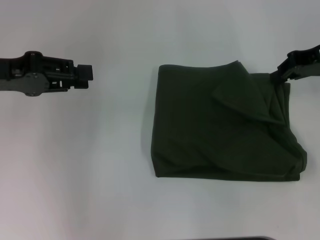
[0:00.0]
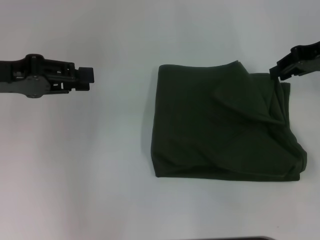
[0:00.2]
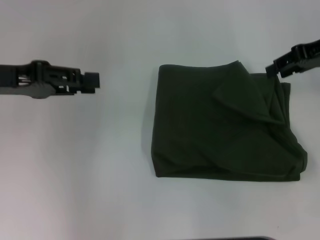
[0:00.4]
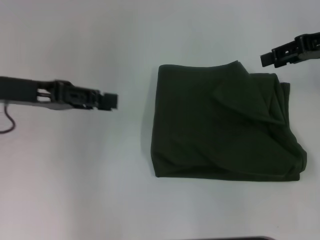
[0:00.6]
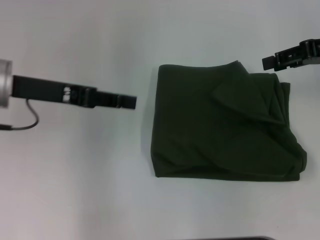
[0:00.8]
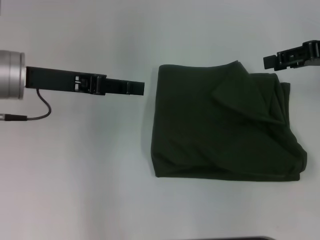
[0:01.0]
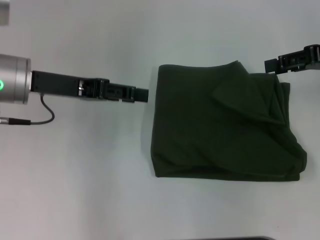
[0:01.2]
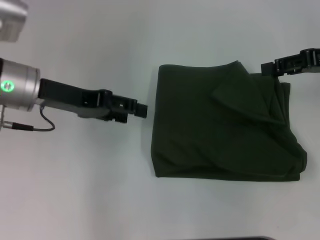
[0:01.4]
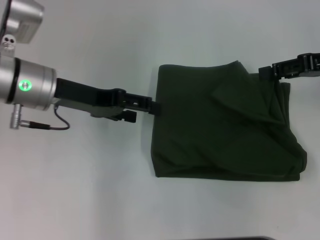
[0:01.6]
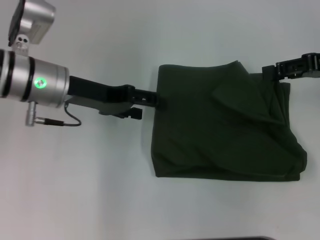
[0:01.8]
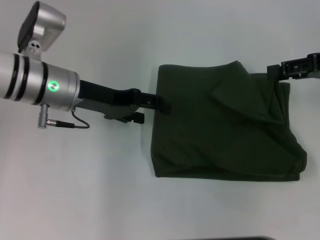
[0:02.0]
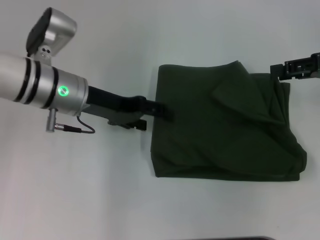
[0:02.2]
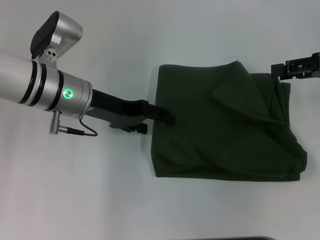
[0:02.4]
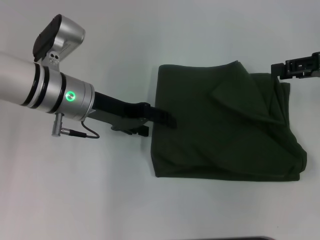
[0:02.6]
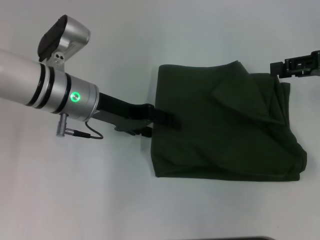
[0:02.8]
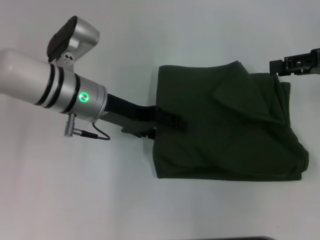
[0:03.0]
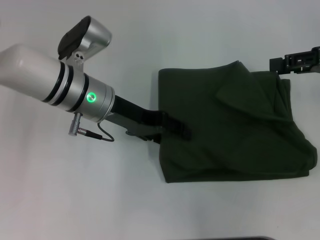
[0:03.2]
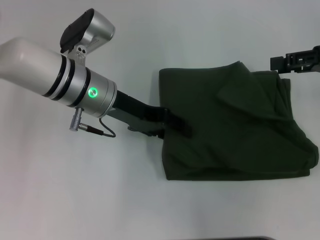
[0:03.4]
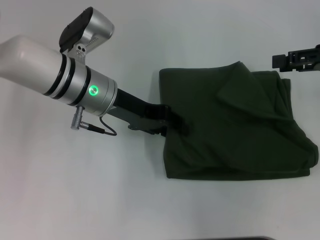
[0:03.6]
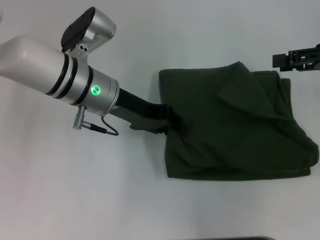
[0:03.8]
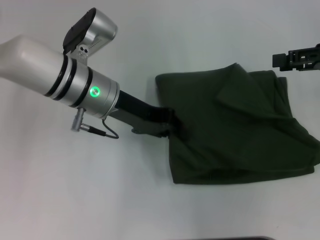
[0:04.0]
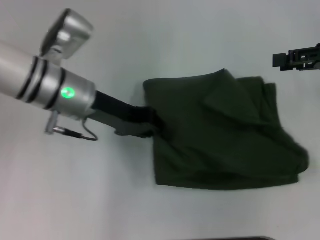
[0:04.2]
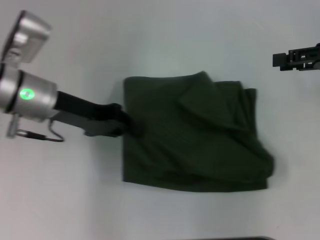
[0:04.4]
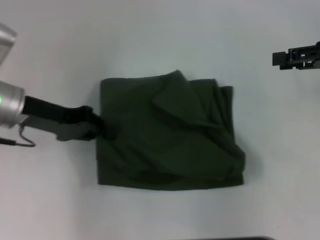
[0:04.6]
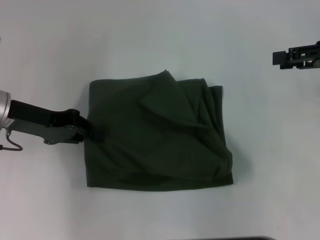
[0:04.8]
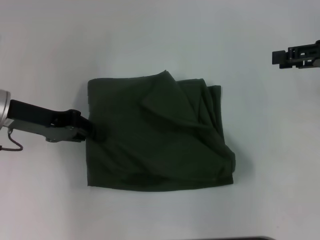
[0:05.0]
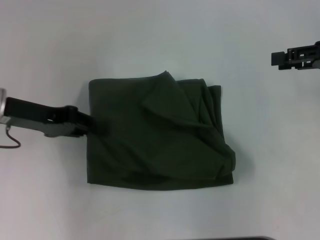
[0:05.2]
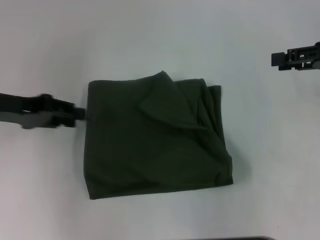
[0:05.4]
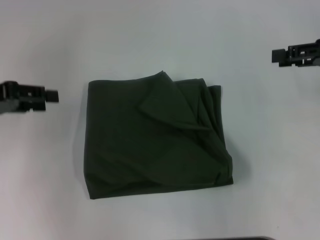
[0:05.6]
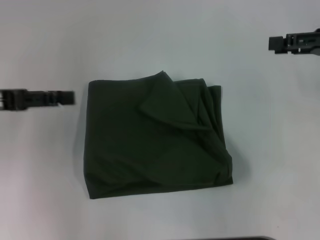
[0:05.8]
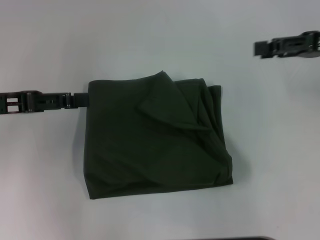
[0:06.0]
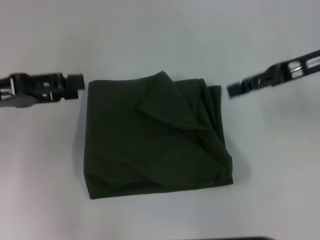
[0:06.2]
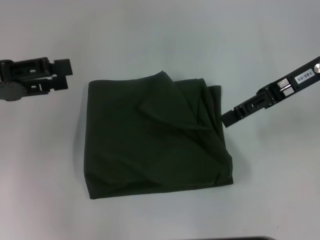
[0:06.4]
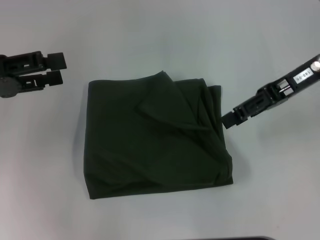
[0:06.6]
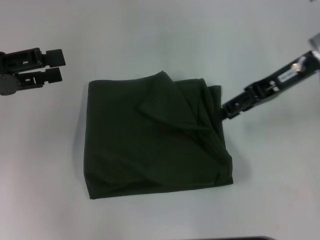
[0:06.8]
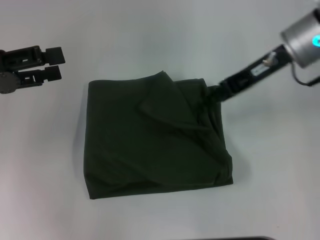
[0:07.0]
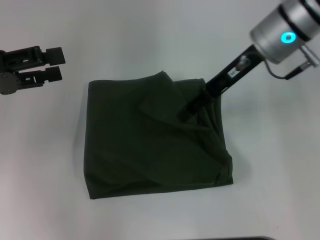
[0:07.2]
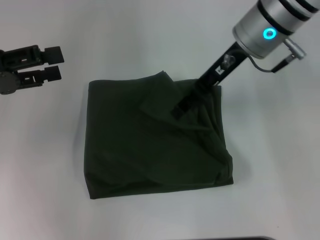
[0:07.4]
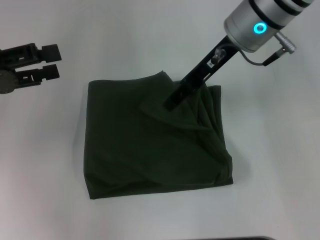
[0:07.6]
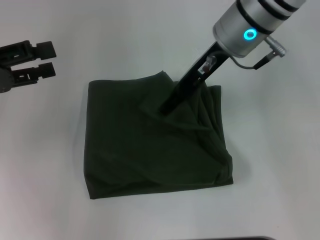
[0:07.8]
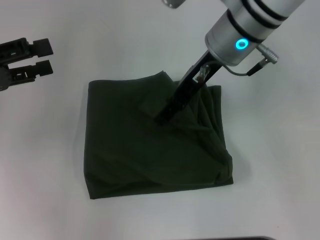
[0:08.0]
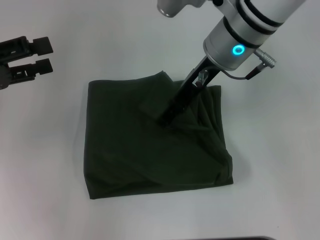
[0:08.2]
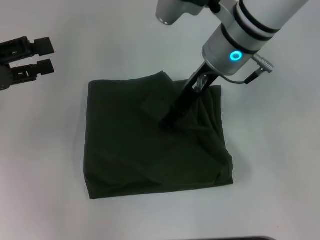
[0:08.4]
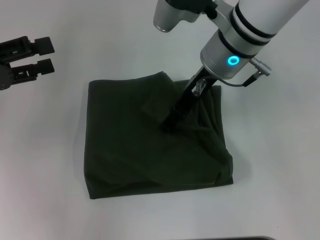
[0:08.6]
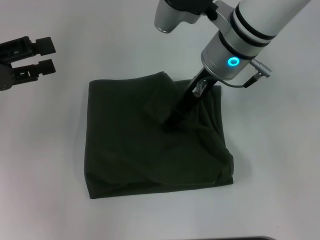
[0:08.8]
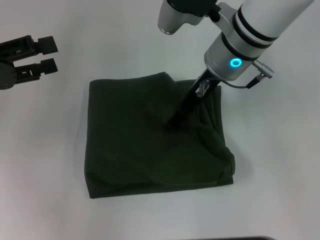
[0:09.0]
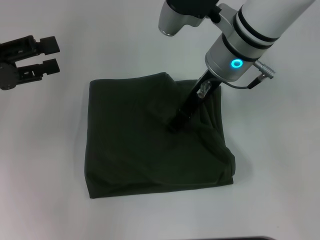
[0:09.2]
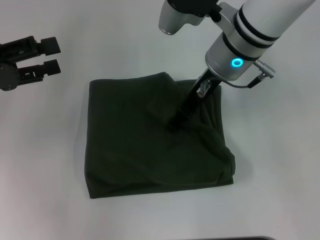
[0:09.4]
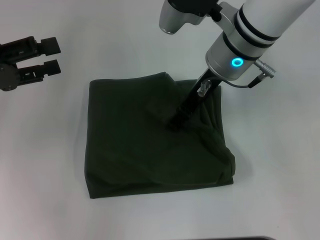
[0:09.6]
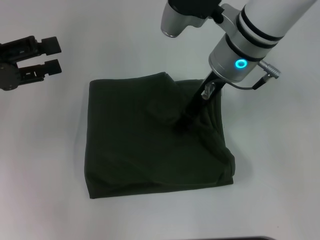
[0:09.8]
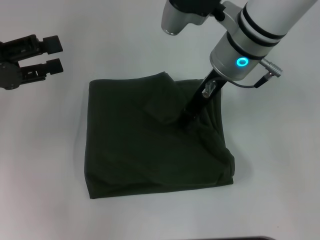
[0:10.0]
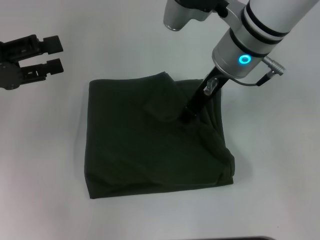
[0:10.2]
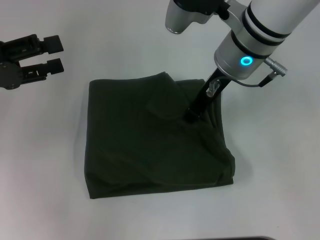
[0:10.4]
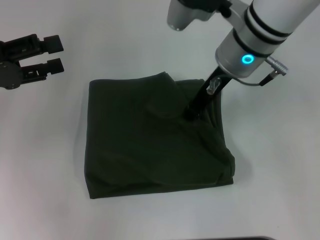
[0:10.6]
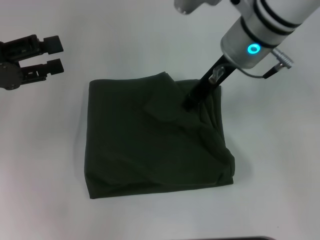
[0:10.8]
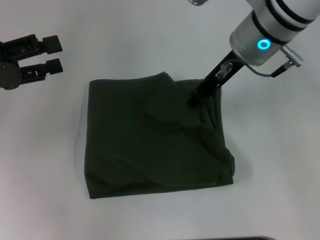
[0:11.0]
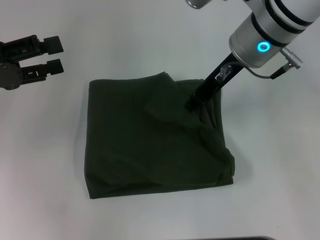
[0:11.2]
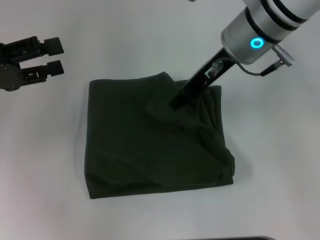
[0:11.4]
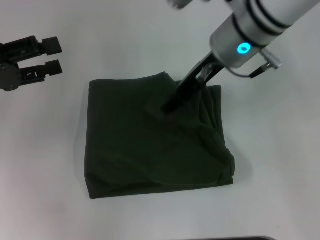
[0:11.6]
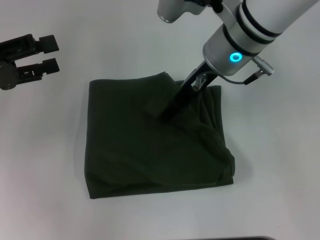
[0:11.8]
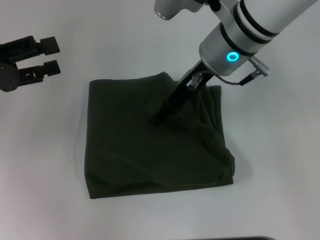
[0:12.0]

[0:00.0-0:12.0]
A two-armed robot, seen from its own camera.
0:00.0 to 0:01.6: The right gripper opens up; the left gripper heads to the right, covering some 10 cm, and opens.
0:01.6 to 0:03.0: The left gripper goes some 5 cm to the right.
0:03.0 to 0:04.4: The left gripper heads to the left, covering about 5 cm, and closes.
0:04.4 to 0:06.0: The left gripper shifts about 10 cm to the left and backward, and opens.
0:06.0 to 0:07.6: The right gripper shifts approximately 20 cm to the left.
0:07.6 to 0:09.0: The grippers move only a little.
0:09.0 to 0:10.4: The right gripper closes.
0:10.4 to 0:12.0: The right gripper opens its fingers.

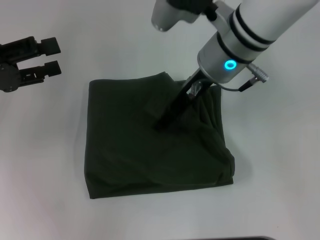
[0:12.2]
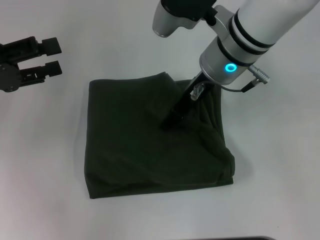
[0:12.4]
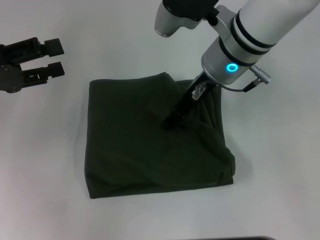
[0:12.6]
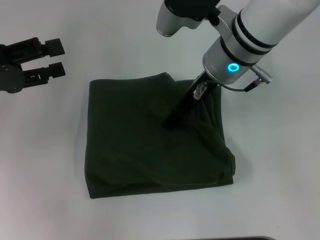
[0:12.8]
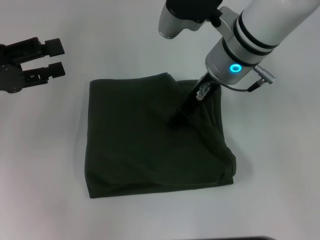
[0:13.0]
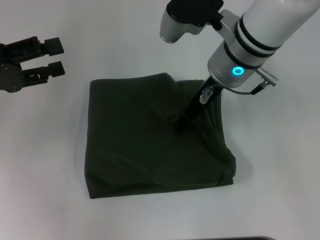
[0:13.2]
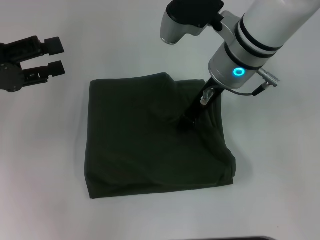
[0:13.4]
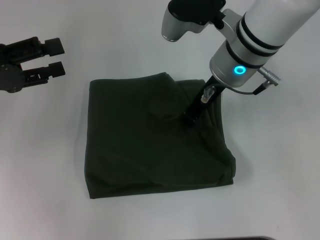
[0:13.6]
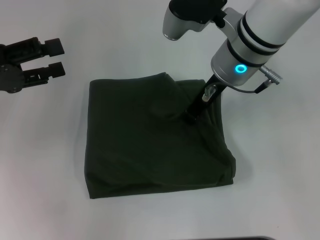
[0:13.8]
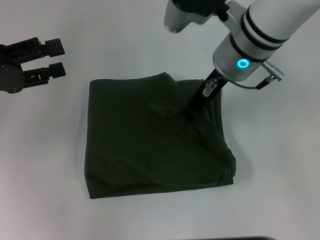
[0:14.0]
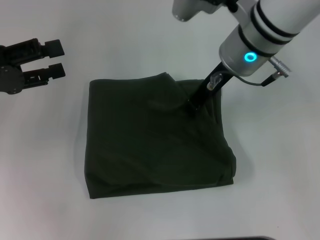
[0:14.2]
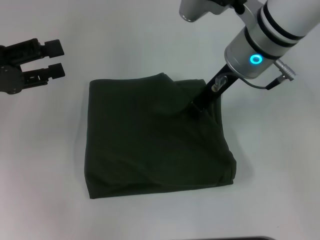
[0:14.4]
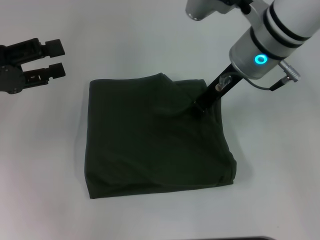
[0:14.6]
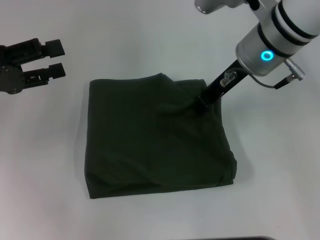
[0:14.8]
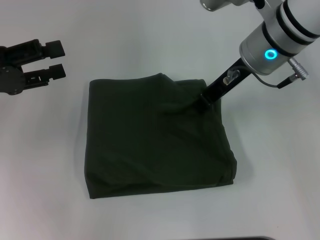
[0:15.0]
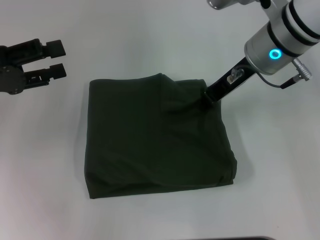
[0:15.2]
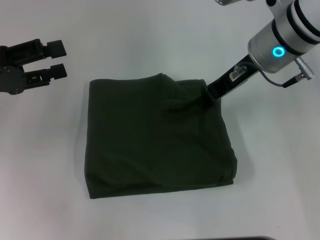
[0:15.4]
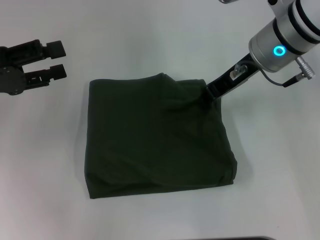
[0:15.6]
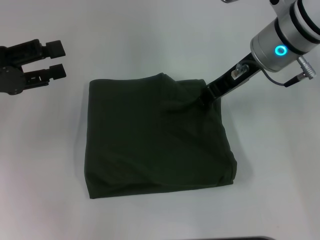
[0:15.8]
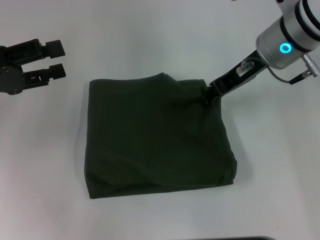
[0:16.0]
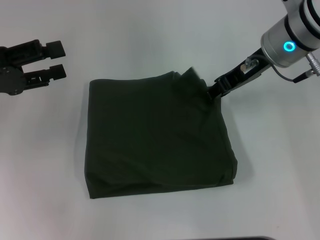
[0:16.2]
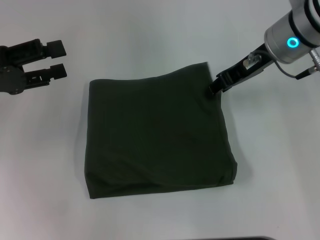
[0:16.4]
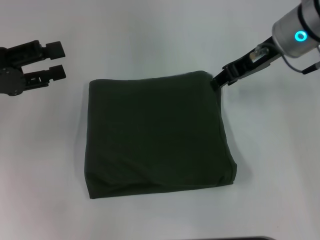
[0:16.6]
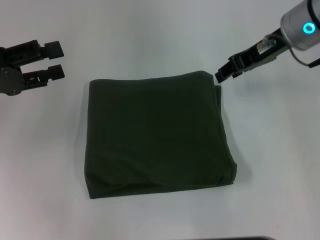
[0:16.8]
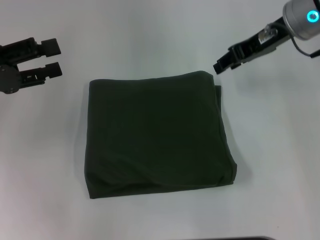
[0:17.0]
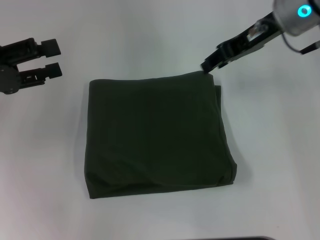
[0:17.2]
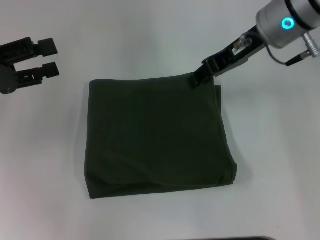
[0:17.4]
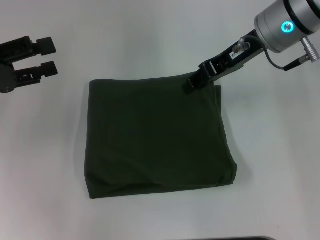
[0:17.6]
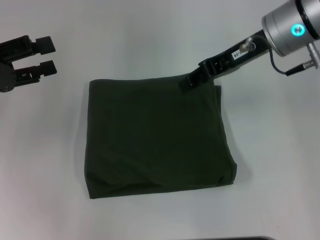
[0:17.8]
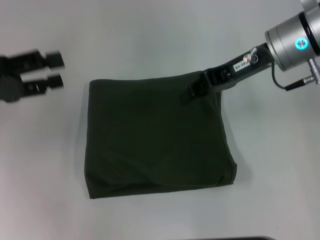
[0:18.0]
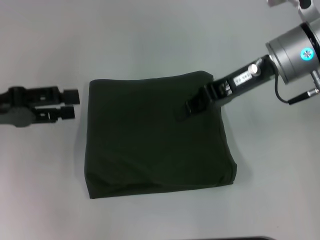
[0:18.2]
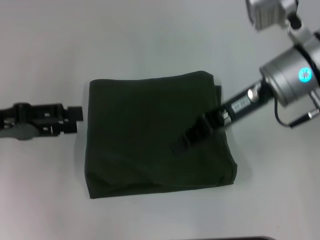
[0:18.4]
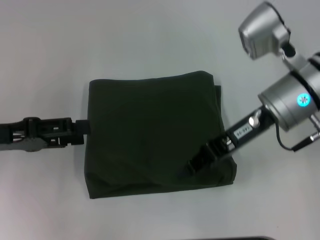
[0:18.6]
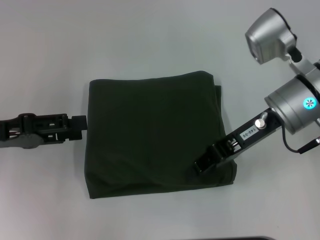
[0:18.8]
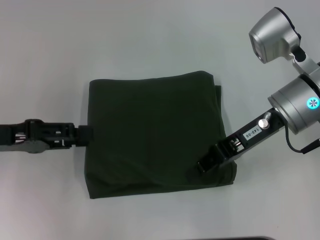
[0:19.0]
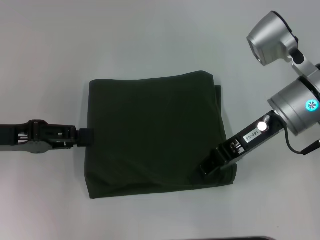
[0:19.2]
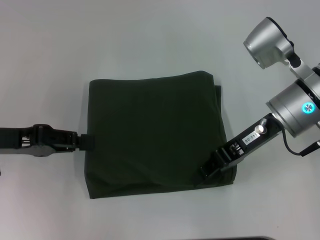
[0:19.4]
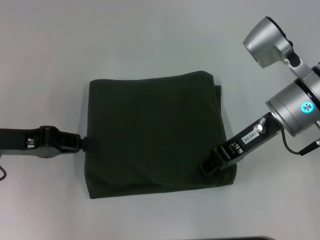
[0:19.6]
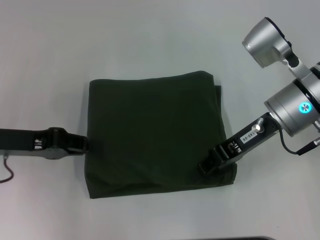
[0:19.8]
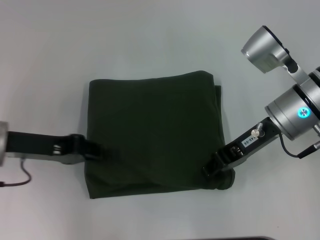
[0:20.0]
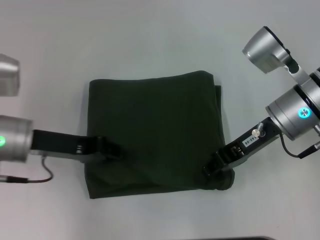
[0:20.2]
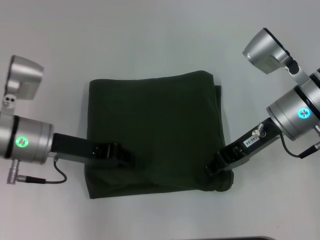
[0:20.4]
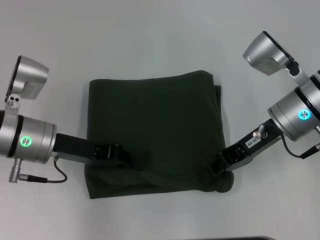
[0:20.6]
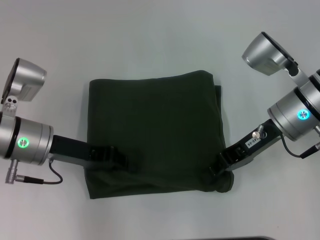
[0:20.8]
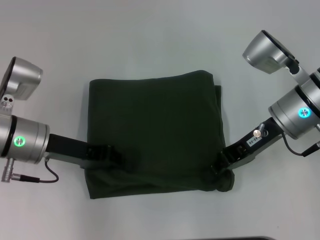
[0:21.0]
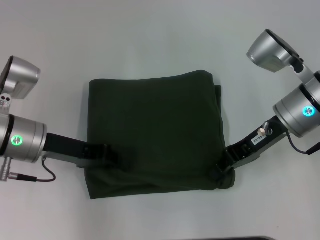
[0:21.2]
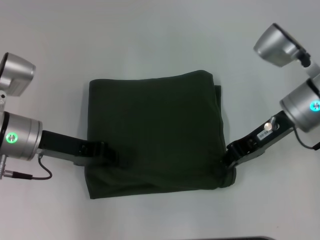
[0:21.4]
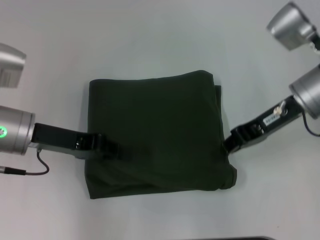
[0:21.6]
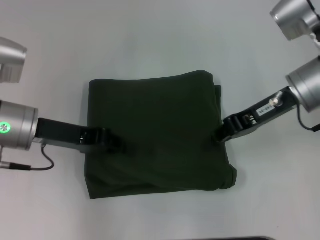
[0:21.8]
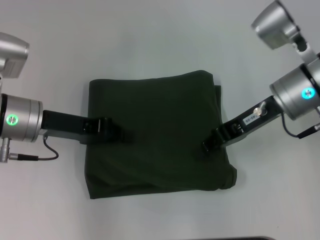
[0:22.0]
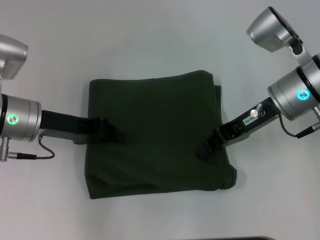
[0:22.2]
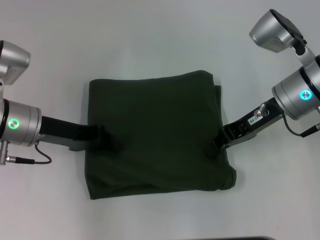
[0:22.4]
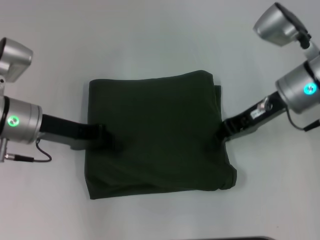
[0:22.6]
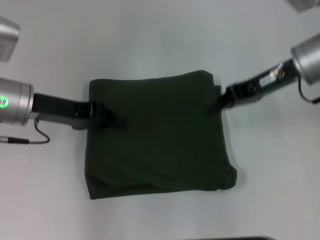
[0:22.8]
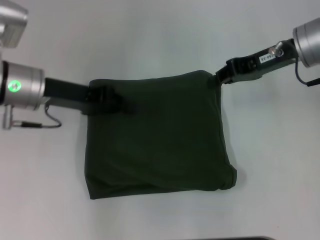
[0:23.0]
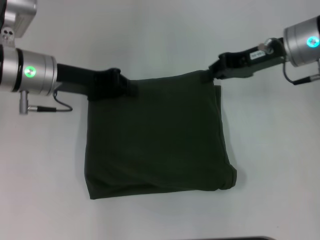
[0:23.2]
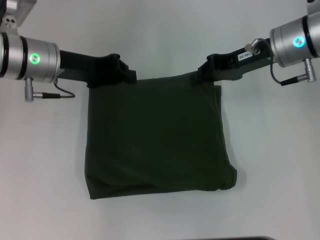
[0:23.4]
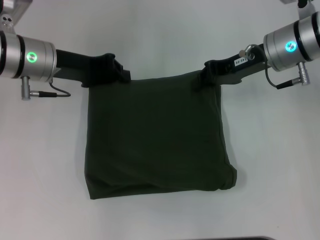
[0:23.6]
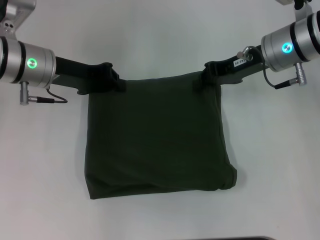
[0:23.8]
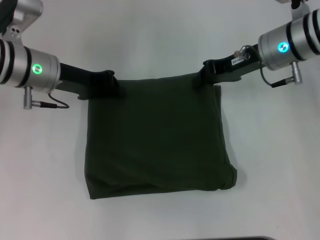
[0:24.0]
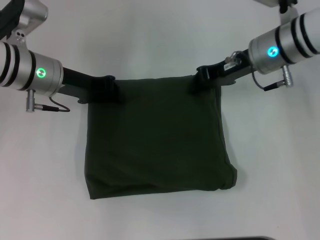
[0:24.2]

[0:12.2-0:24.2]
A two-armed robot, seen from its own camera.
0:12.2 to 0:13.8: The right gripper closes its fingers.
0:13.8 to 0:15.2: The right gripper shifts by approximately 5 cm.
0:15.2 to 0:16.6: The right gripper opens.
0:16.6 to 0:18.2: The right gripper closes.
0:18.2 to 0:19.8: The right gripper shifts by about 5 cm; the left gripper closes.
0:19.8 to 0:21.2: The left gripper shifts about 5 cm to the right.
0:21.2 to 0:22.6: There are only small adjustments of the grippers.
0:22.6 to 0:24.2: Both grippers travel together forward, approximately 5 cm.
